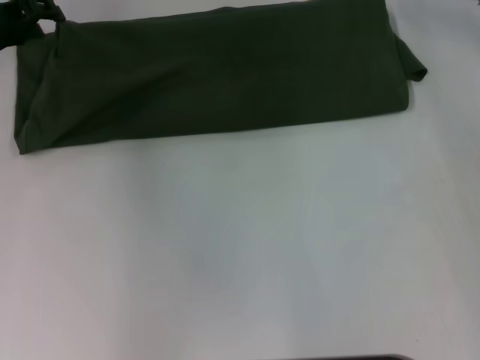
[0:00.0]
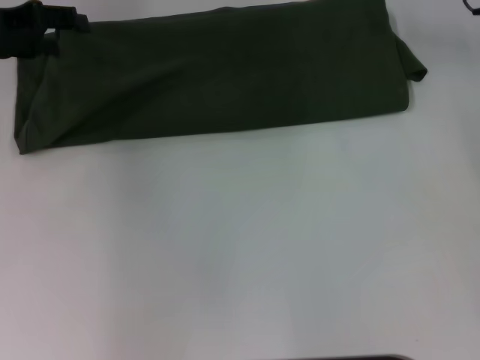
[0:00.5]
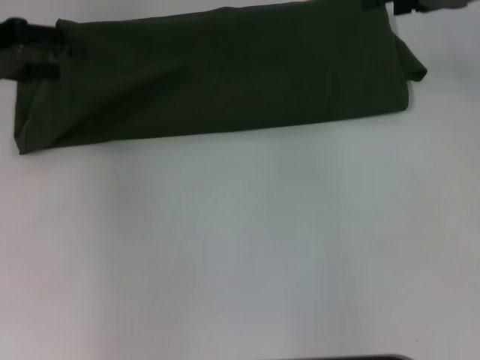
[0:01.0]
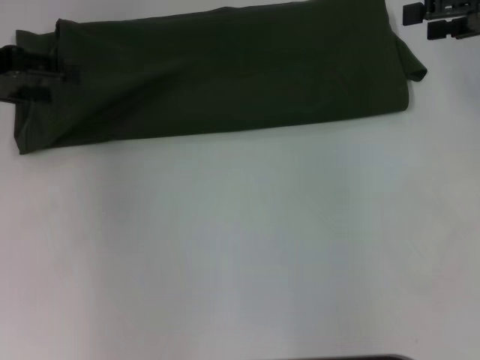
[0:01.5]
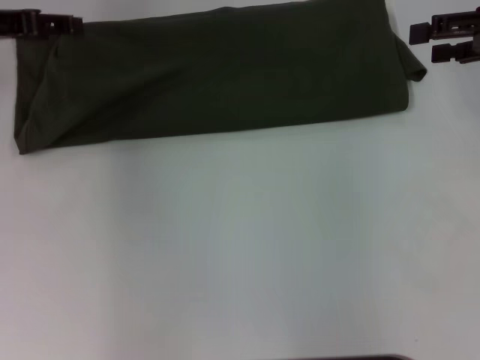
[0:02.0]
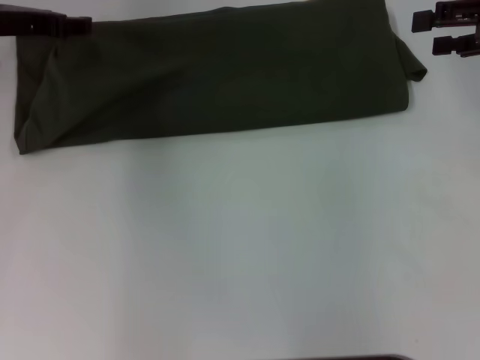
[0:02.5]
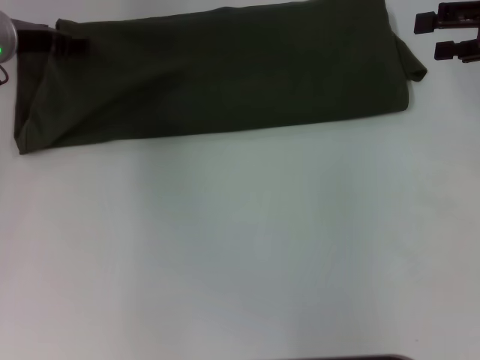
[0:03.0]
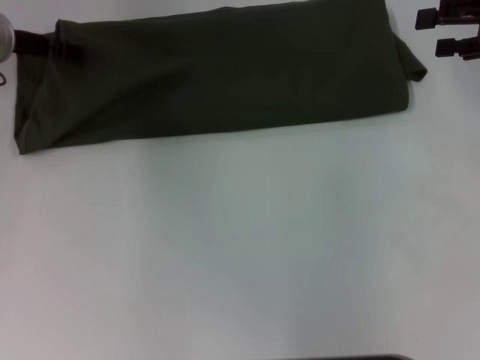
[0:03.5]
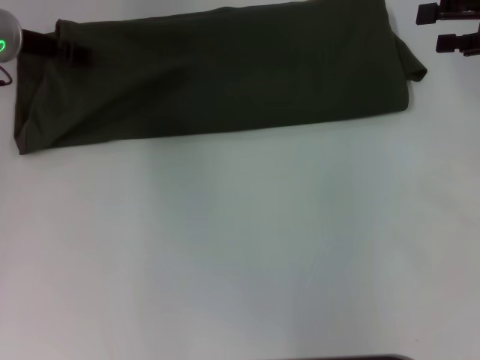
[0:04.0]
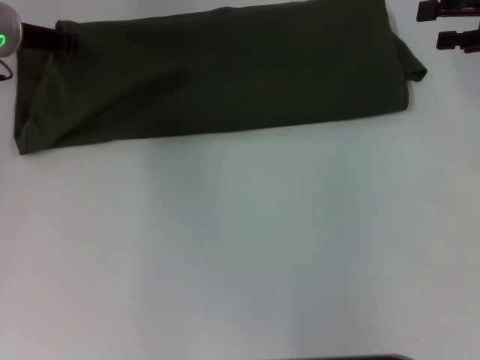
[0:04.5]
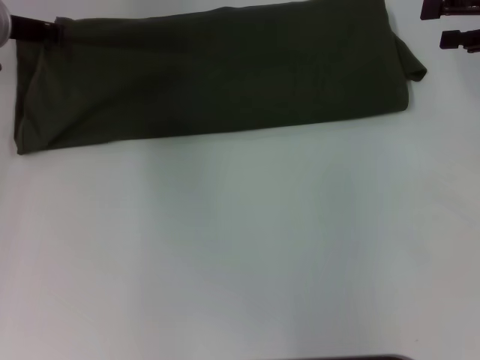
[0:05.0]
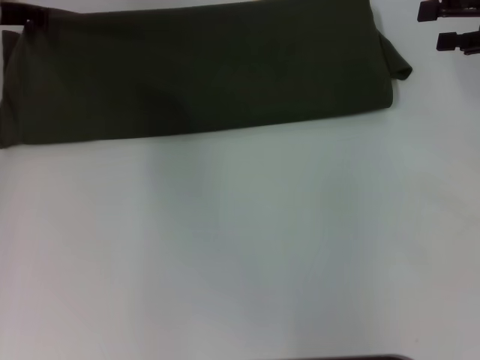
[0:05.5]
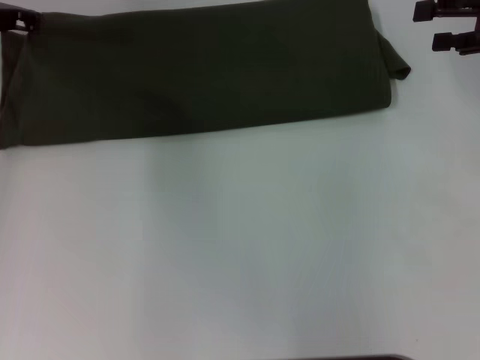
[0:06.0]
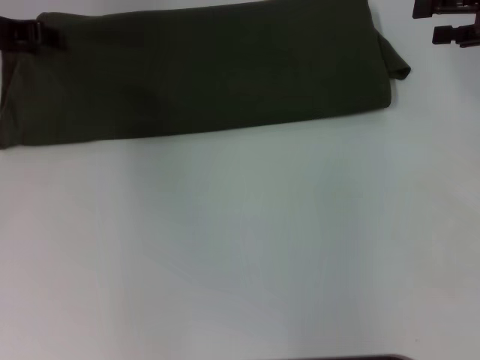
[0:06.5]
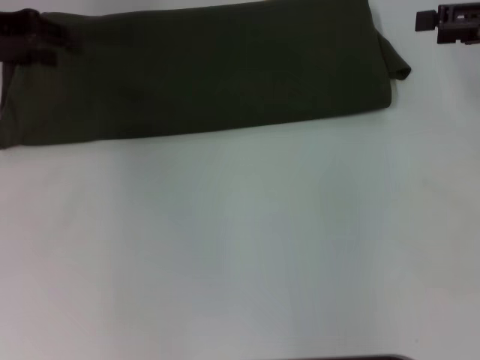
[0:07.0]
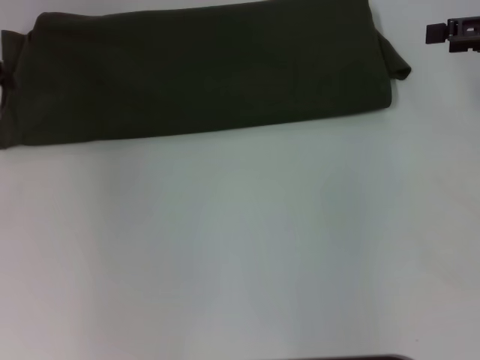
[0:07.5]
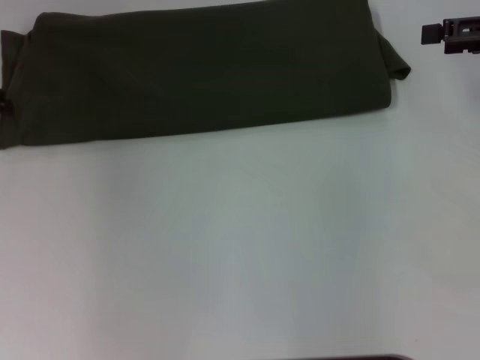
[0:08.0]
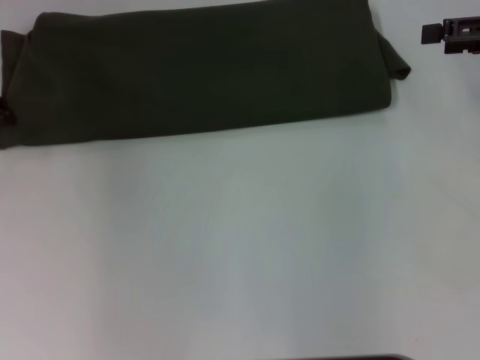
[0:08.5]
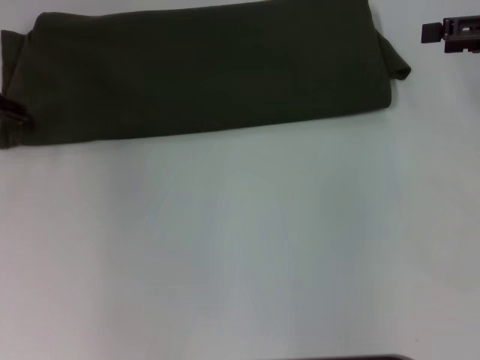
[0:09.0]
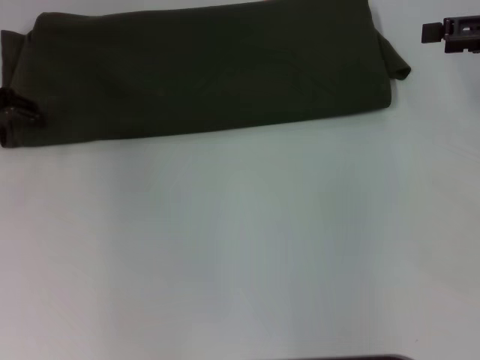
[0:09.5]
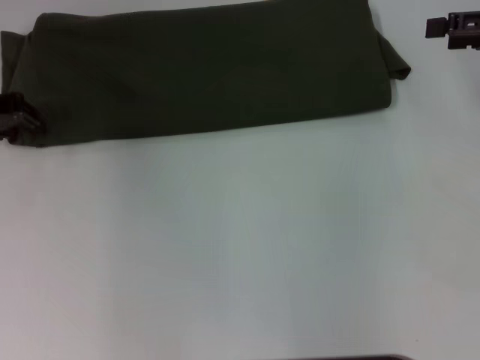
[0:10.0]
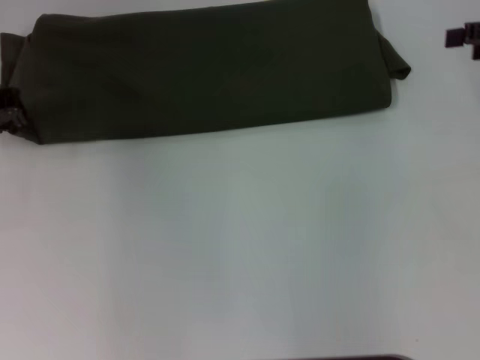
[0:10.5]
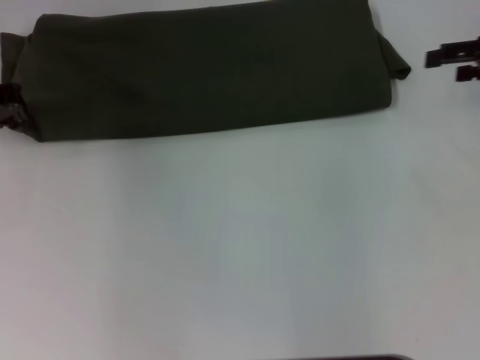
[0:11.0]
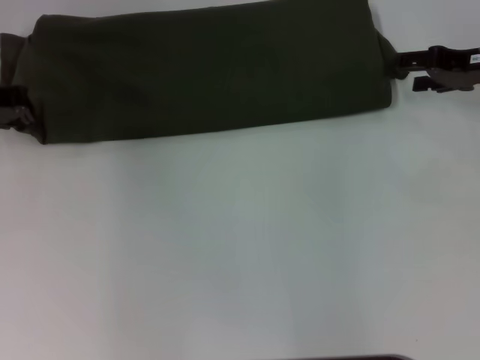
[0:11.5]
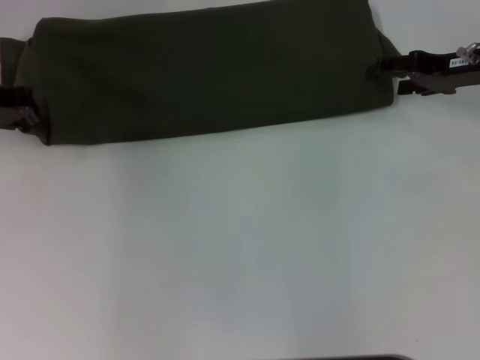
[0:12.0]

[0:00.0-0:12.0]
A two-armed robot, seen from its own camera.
0:00.0 to 0:02.0: The left gripper opens up; the right gripper is displaced backward and to the right by about 15 cm, and opens its fingers.
0:02.0 to 0:04.0: The left gripper shifts about 5 cm downward.
0:04.0 to 0:06.0: The left gripper closes up.
0:06.0 to 0:08.0: The left gripper goes approximately 10 cm to the left and backward, and opens up.
0:10.0 to 0:12.0: The left gripper closes its fingers; the right gripper goes roughly 10 cm downward and to the left.

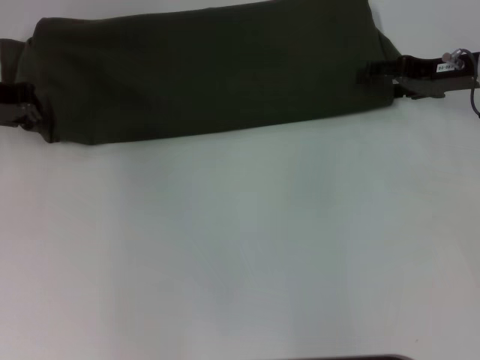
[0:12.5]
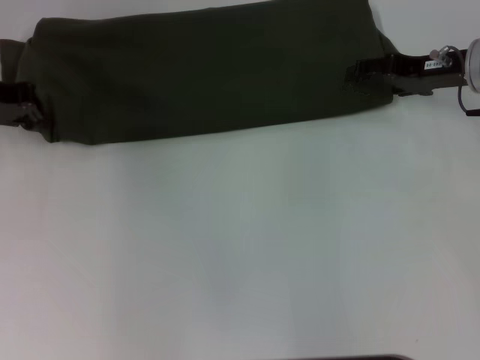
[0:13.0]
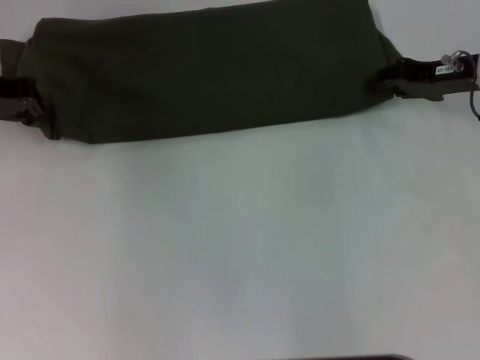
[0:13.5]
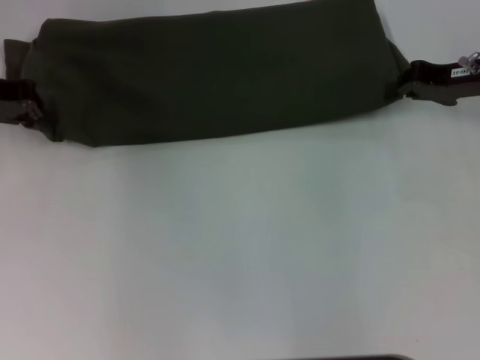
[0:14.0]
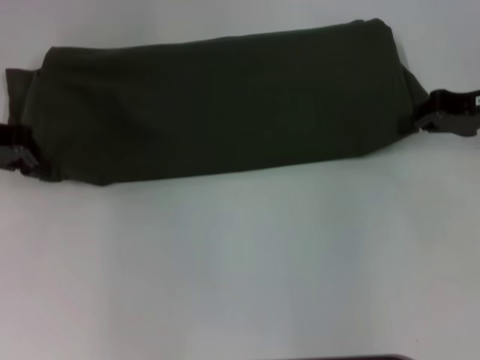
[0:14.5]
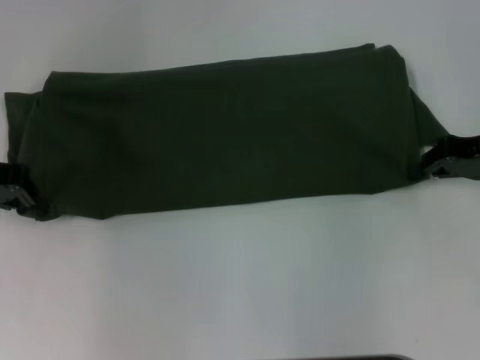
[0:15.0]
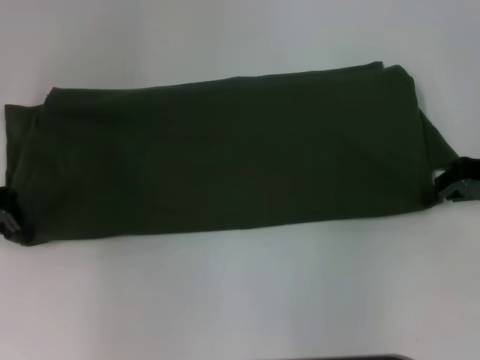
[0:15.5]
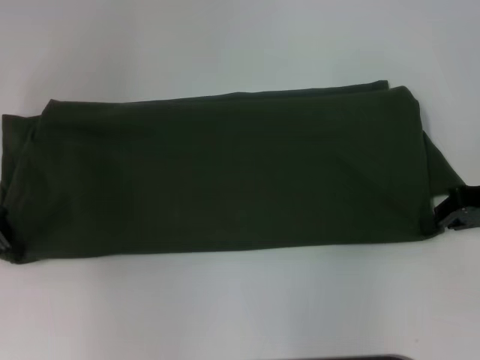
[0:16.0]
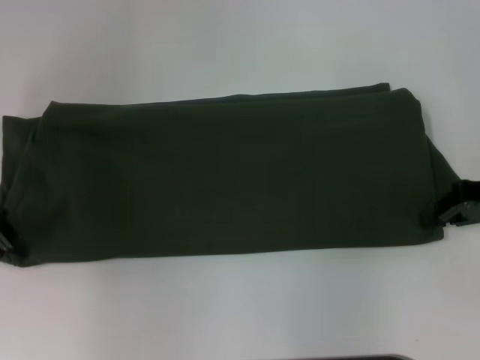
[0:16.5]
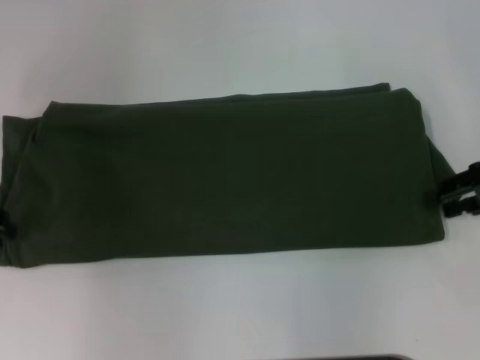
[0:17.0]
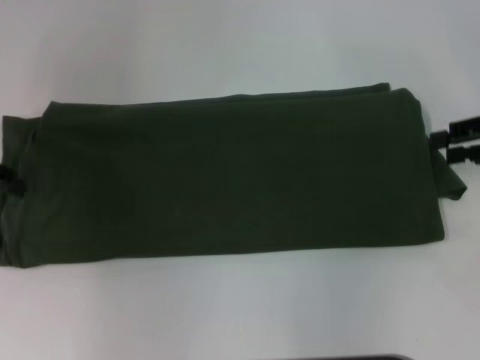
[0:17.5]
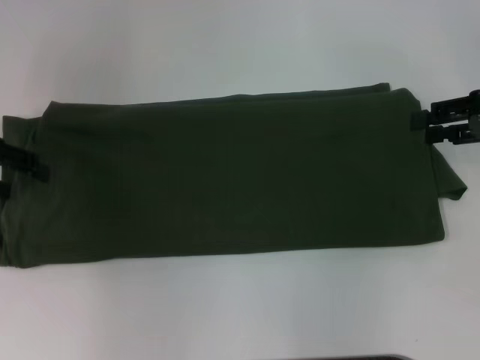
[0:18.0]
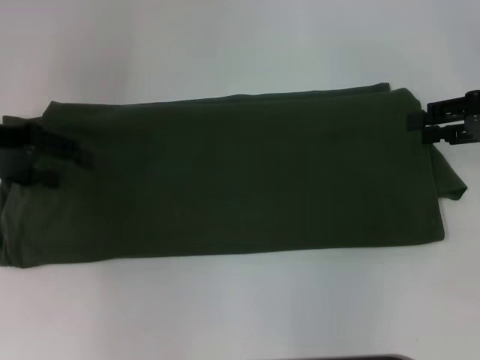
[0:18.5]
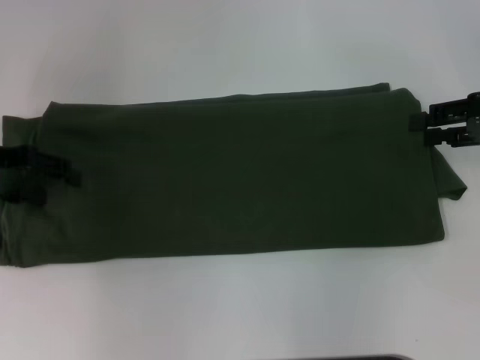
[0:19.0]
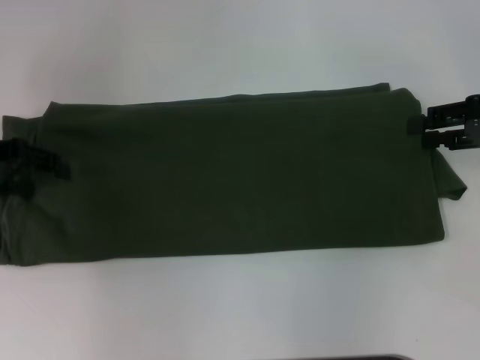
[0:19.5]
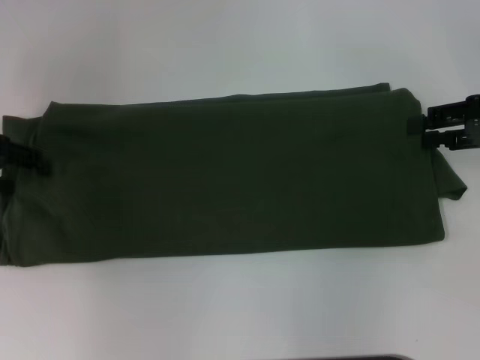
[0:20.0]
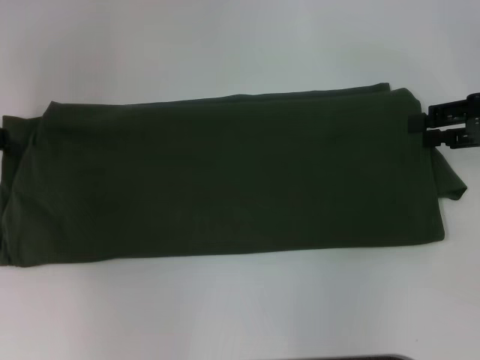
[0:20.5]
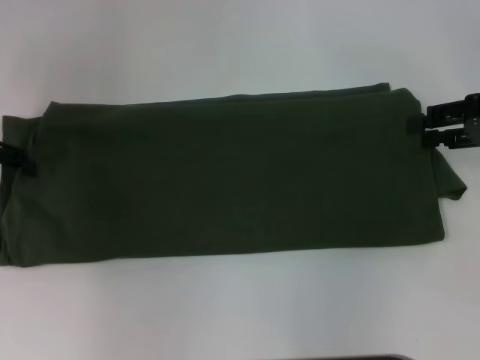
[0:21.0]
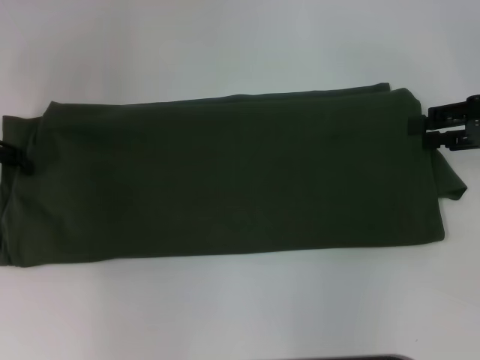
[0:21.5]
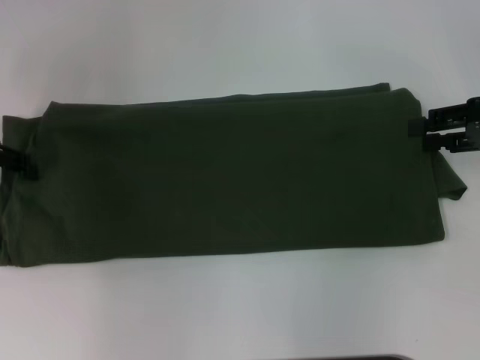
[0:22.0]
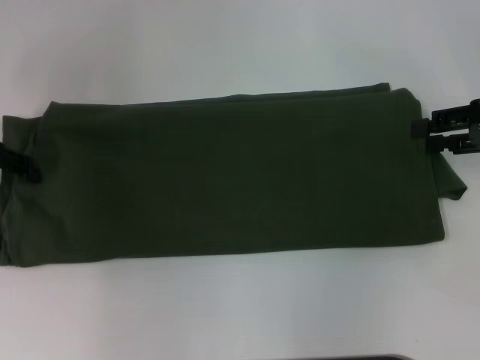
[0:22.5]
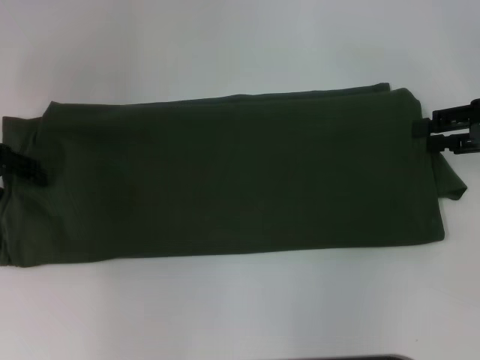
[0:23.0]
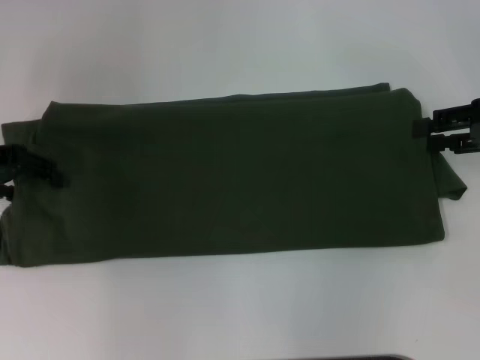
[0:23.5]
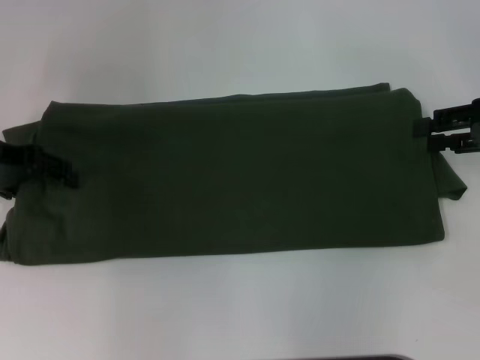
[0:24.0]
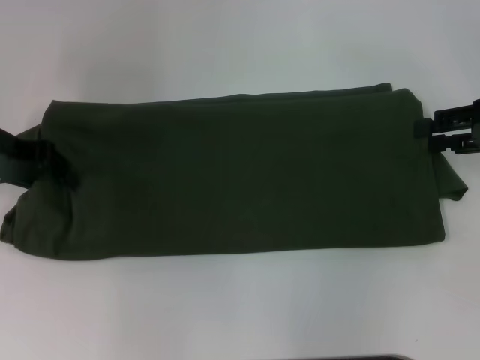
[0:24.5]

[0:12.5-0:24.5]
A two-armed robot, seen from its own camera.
0:12.5 to 0:14.5: The right gripper closes up.
0:14.5 to 0:16.5: The right gripper moves backward, some 5 cm; the left gripper ends up about 5 cm from where it was.
0:16.5 to 0:18.5: The left gripper opens up; the right gripper opens up.
0:18.5 to 0:20.5: The left gripper goes roughly 5 cm to the left.
0:20.5 to 0:22.5: The grippers make only small movements.
0:22.5 to 0:24.5: The grippers move only a little.

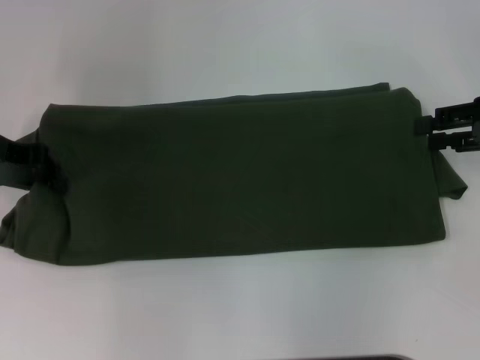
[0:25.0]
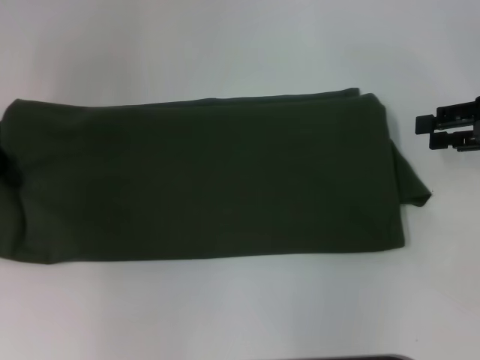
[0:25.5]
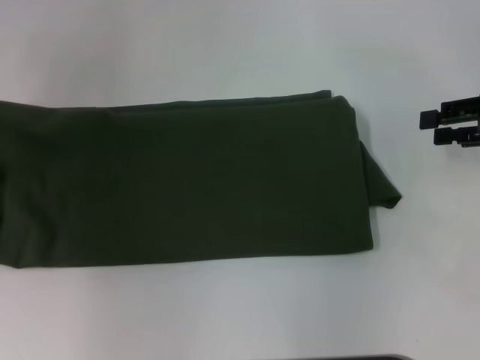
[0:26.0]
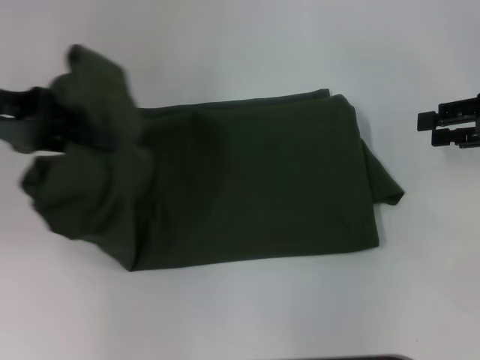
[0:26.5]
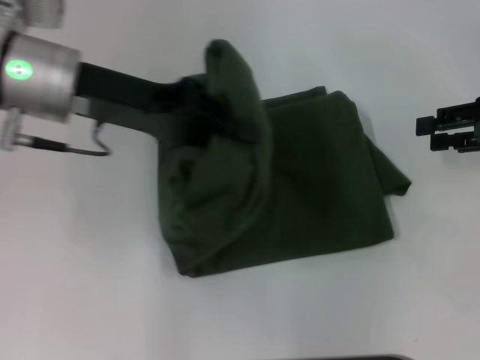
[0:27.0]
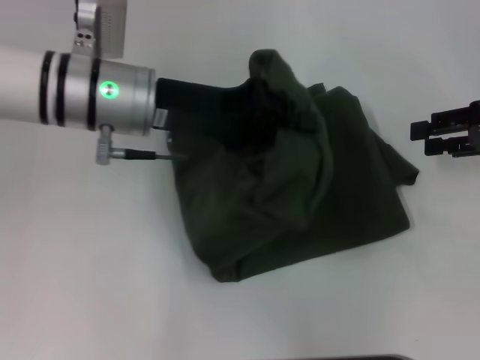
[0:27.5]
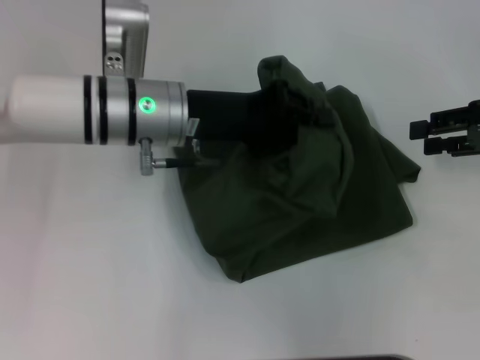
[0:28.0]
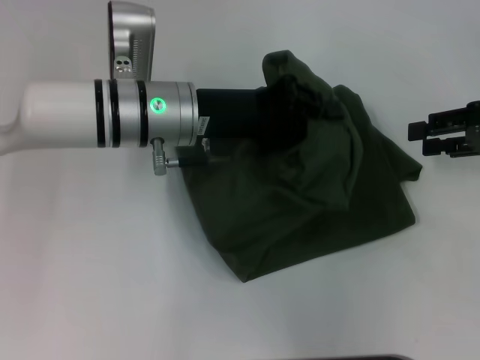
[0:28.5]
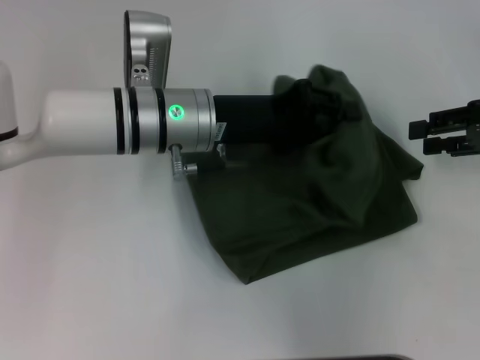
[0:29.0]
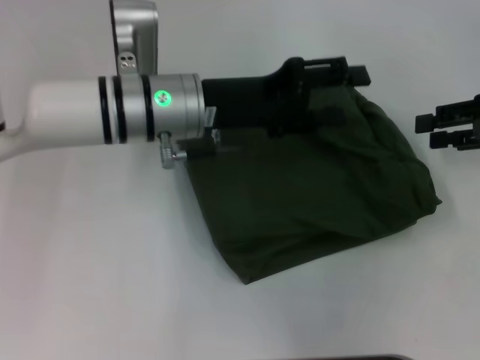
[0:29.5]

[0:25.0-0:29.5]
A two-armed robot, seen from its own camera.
0:25.0 to 0:27.0: The left gripper heads to the right, covering some 10 cm.
0:27.0 to 0:29.5: The left gripper shifts about 10 cm to the right and downward, and opens.
